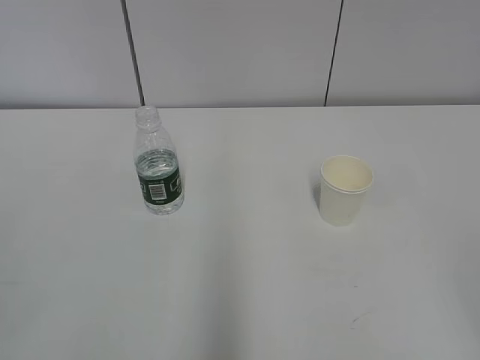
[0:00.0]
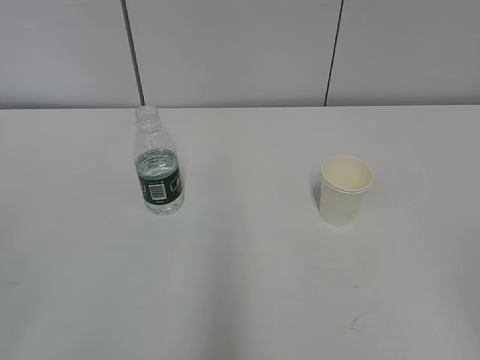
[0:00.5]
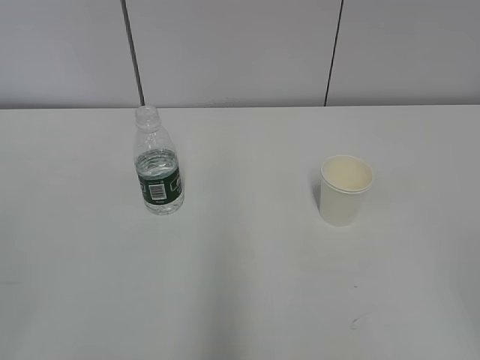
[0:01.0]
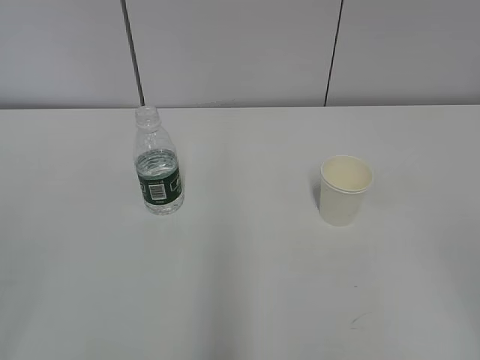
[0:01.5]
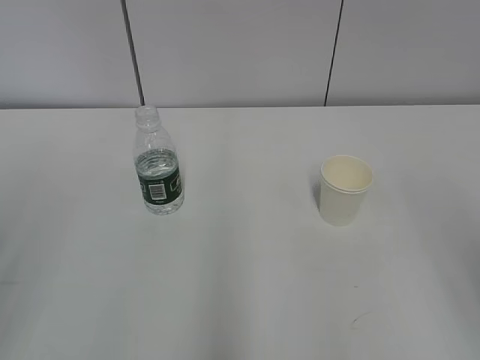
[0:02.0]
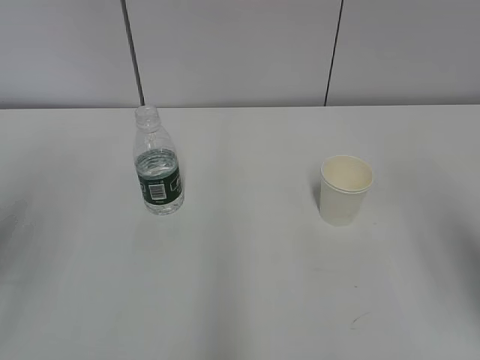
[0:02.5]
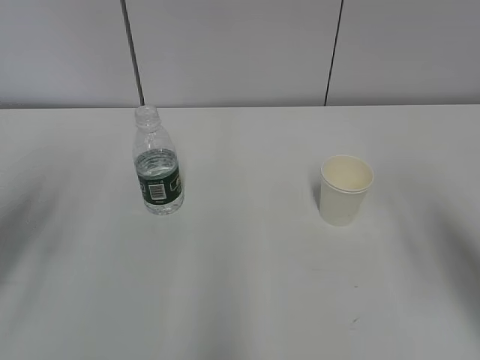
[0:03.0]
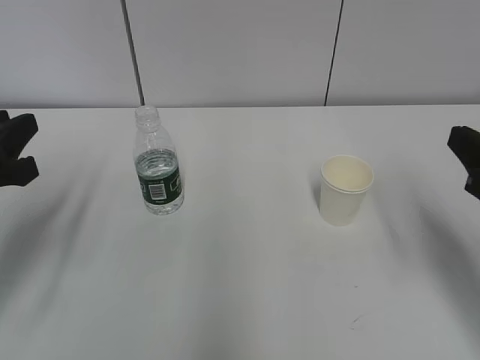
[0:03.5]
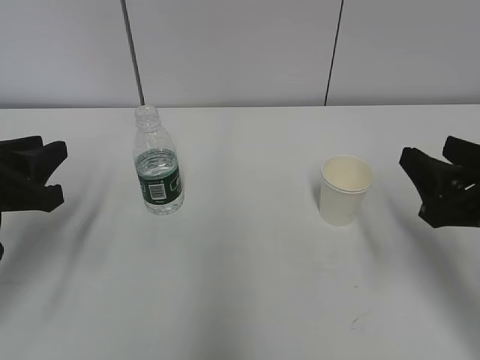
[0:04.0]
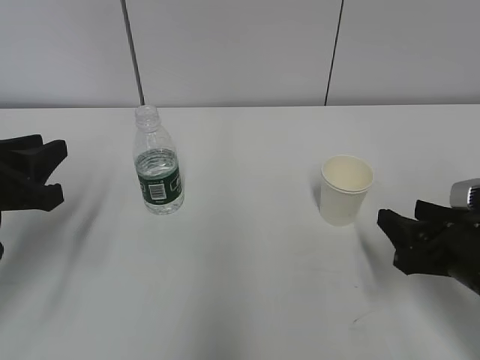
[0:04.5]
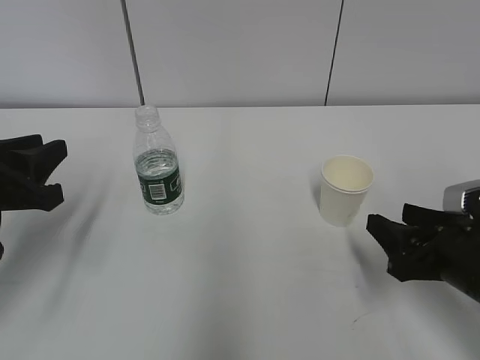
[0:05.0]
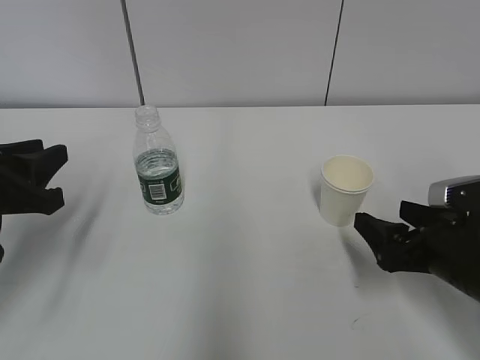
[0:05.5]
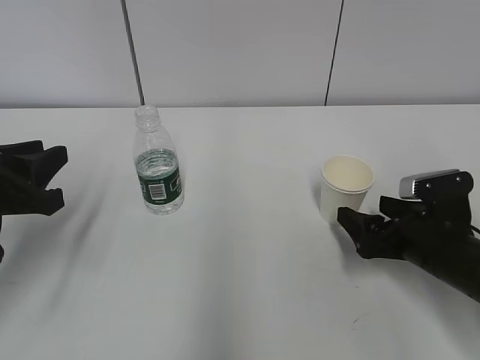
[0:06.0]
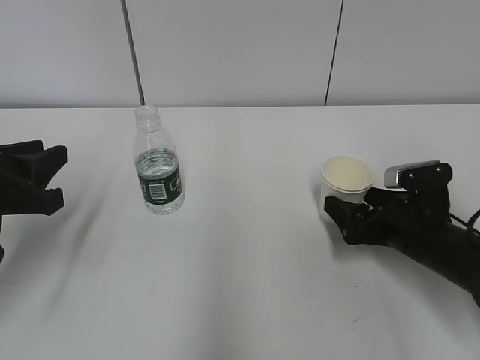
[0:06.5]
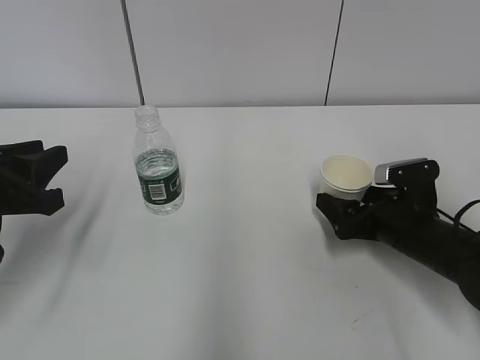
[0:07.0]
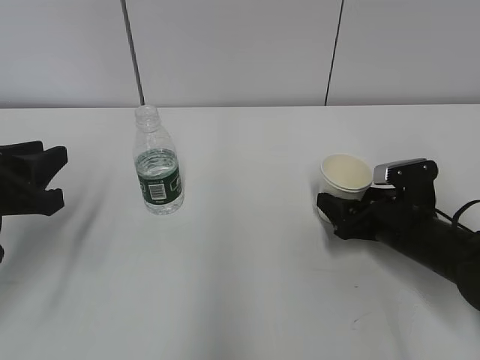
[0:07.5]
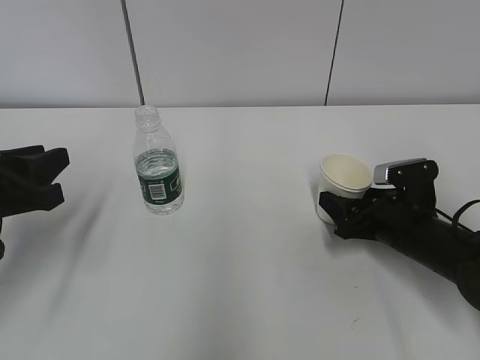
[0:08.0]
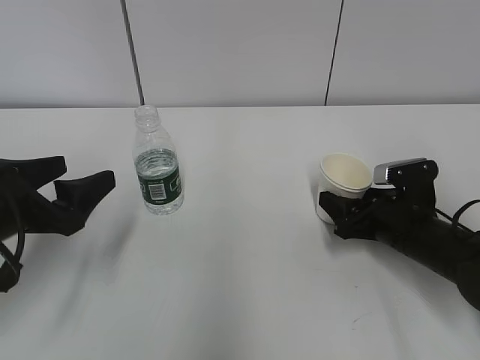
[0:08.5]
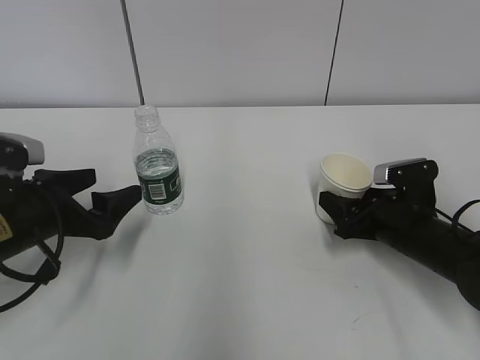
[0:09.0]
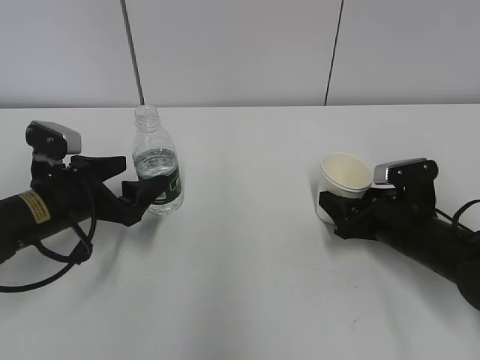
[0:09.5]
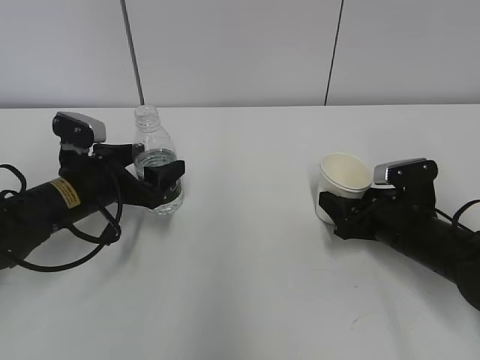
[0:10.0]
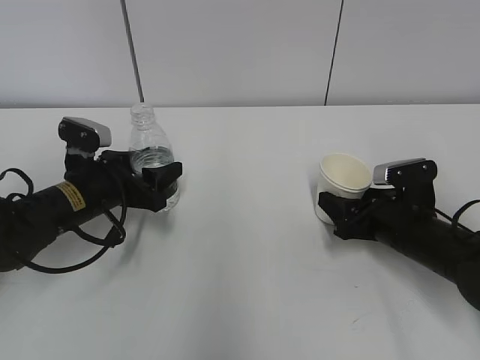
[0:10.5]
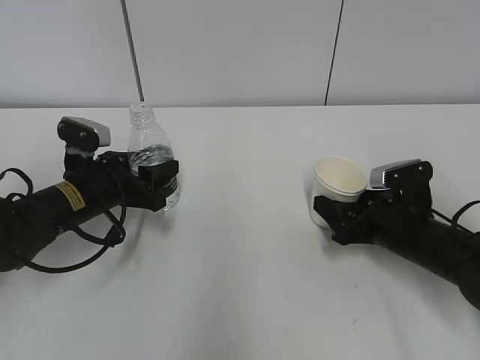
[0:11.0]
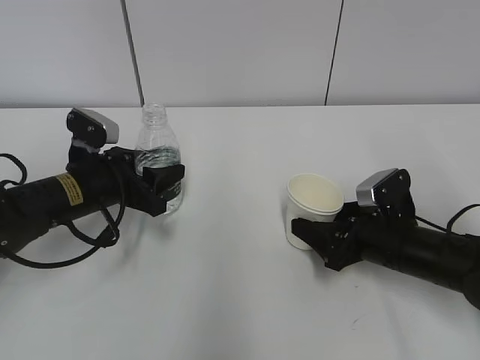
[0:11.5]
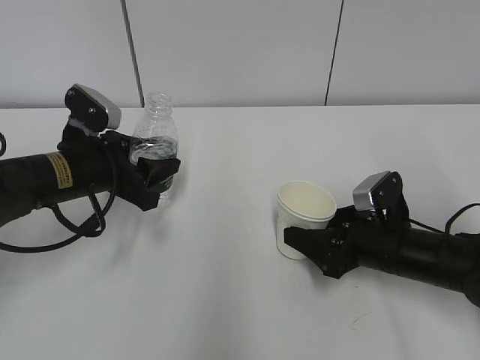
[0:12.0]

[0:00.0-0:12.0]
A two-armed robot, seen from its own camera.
Step, 0:00.0 to 0:09.0: Grab the paper cup with the right hand.
0:02.0 to 0:04.0: Both grippers move forward and downward, roughly 20 cm.
0:04.0 to 0:06.0: The right gripper moves downward and forward, approximately 10 cm, and opens.
0:06.0 to 0:08.0: The right gripper moves some 5 cm, and closes.
0:08.0 to 0:10.0: The left gripper is displaced forward, downward and to the right by about 15 cm, and opens up.
0:10.0 to 0:12.0: The left gripper closes up.

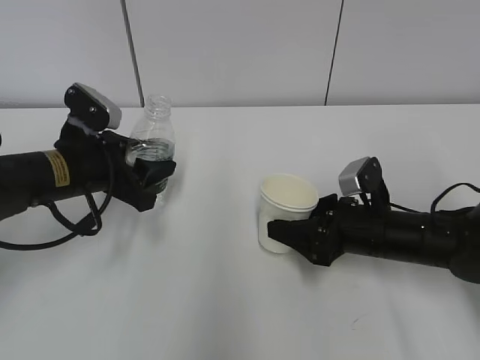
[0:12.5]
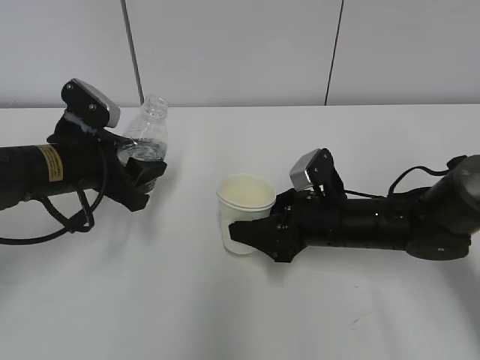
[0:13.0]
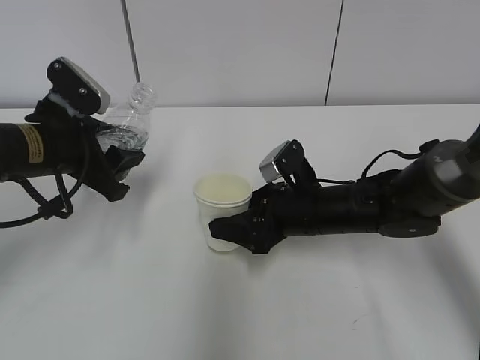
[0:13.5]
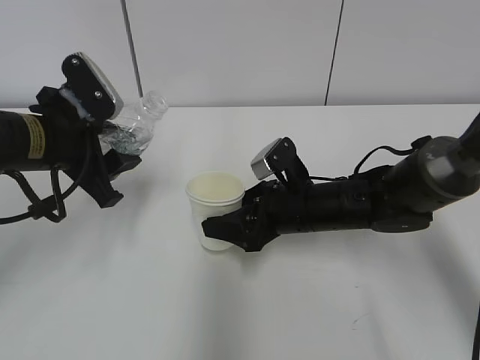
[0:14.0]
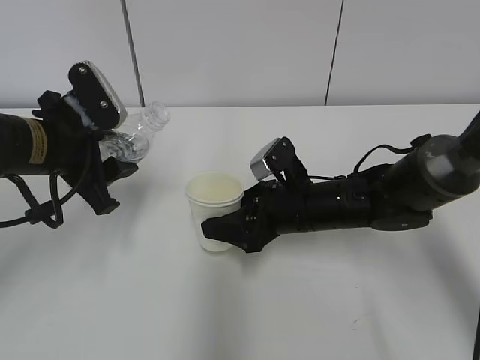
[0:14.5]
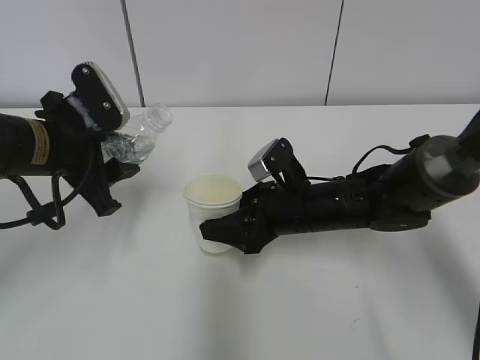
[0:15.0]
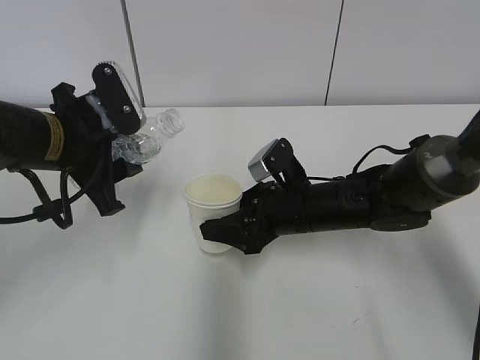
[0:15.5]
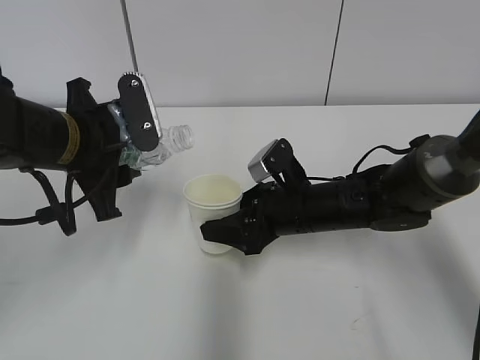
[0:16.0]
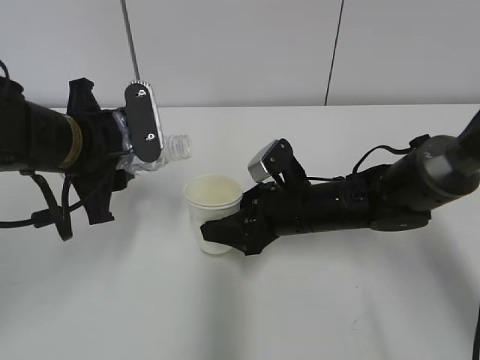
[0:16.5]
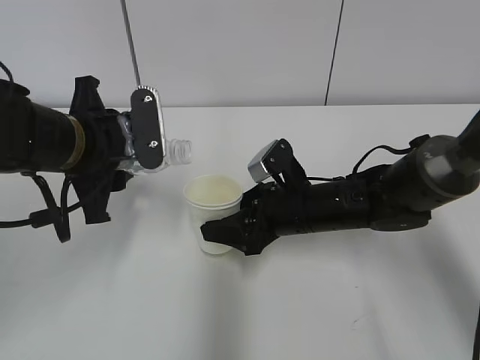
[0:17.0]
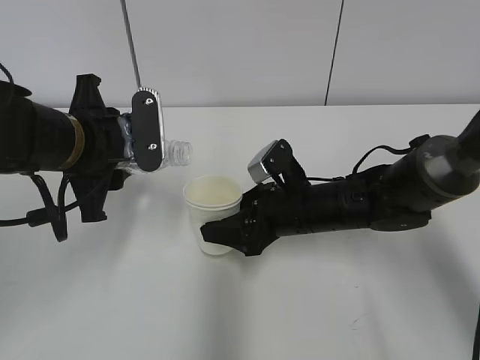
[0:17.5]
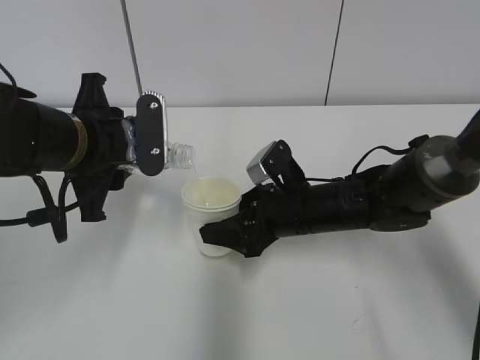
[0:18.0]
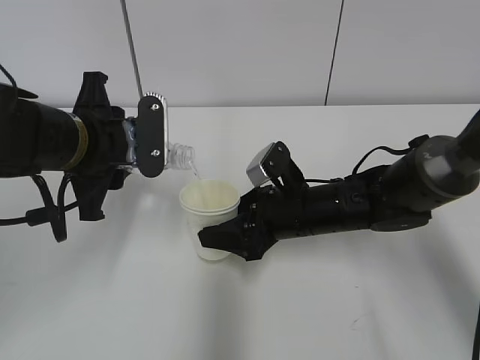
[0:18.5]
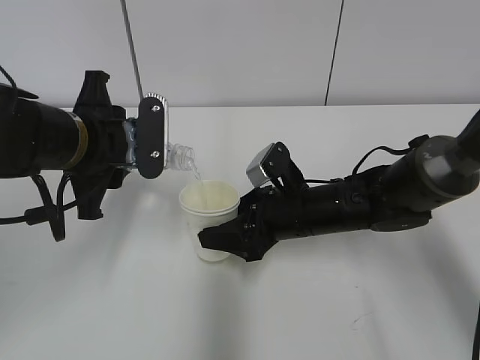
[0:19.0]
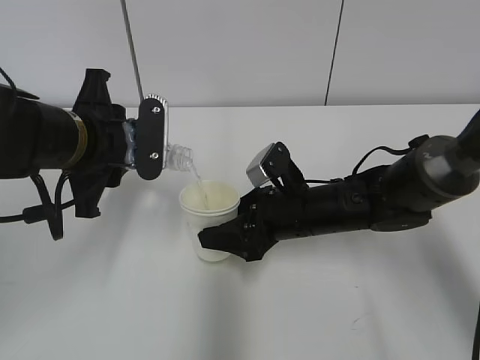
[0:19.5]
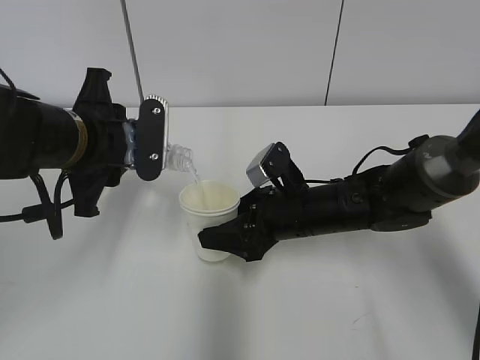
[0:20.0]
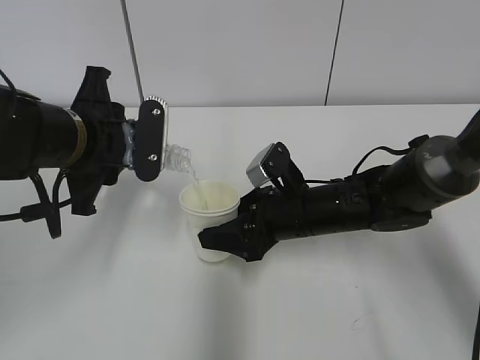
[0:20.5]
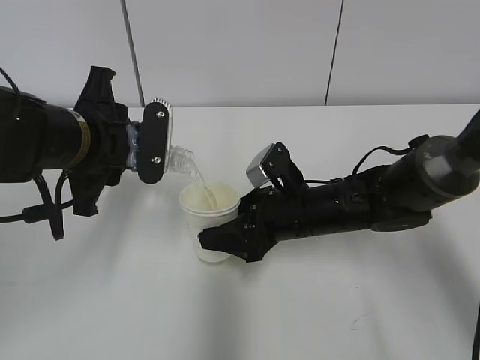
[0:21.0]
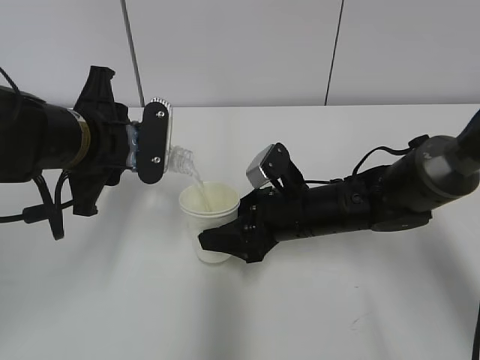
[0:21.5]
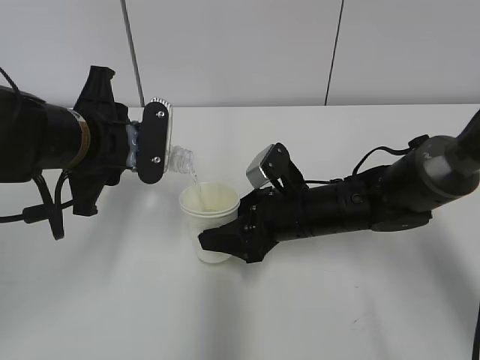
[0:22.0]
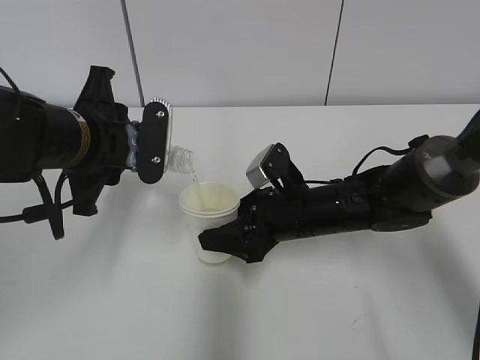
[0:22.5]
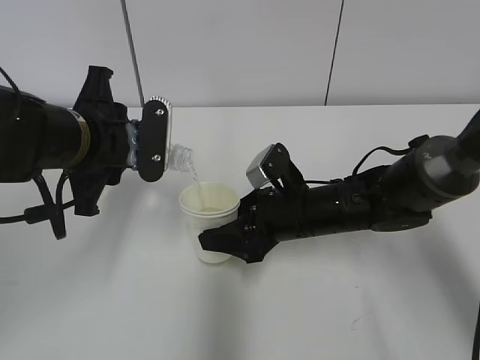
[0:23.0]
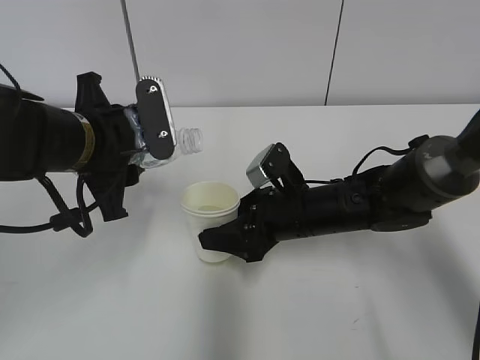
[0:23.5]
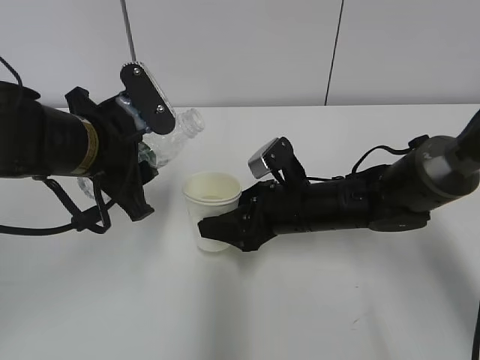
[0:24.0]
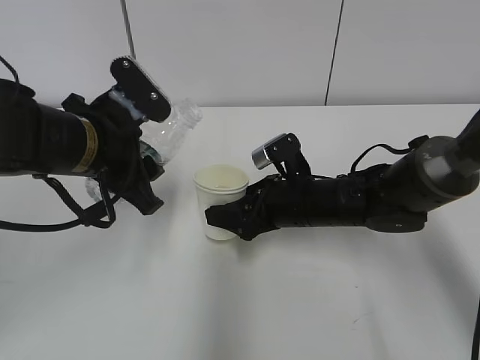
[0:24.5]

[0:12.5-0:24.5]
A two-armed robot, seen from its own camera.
Step, 0:14.5 to 0:19.0: Pour water with the left hand.
Step, 0:19.5 to 0:21.0: Collect water with the left hand.
0:12.5 to 0:14.5: The left gripper heads upward, covering approximately 5 cm, while the right gripper travels to the left by about 10 cm.
0:16.5 to 0:20.5: The grippers stay close to where they were, moving slightly.
0:20.5 to 0:22.5: Neither gripper changes place.

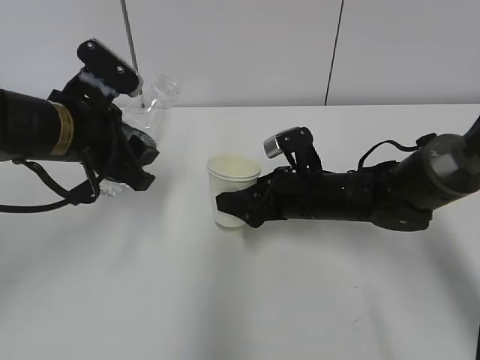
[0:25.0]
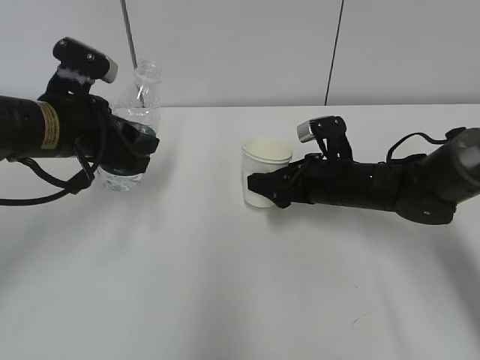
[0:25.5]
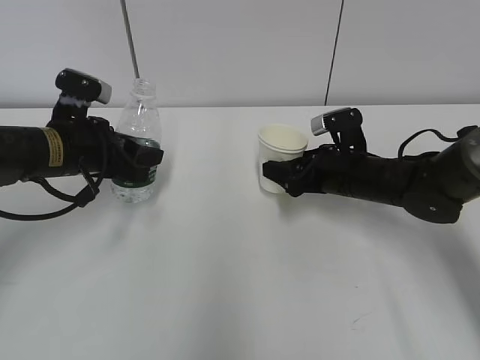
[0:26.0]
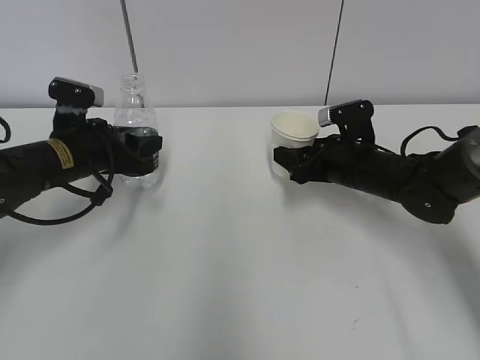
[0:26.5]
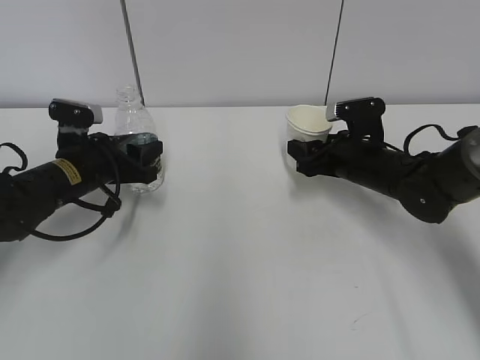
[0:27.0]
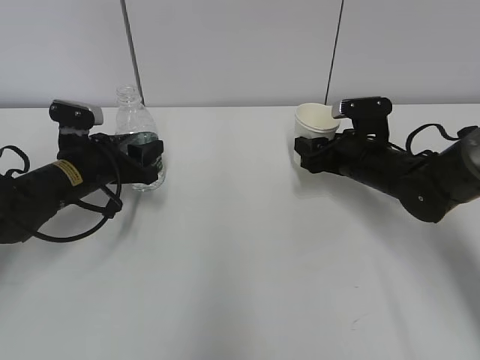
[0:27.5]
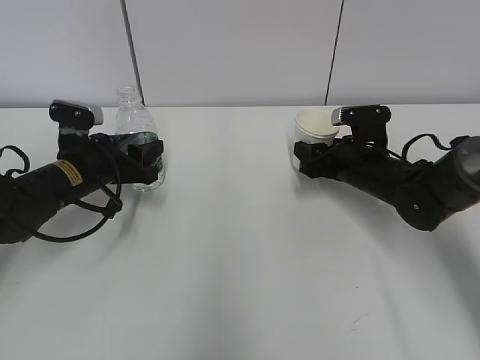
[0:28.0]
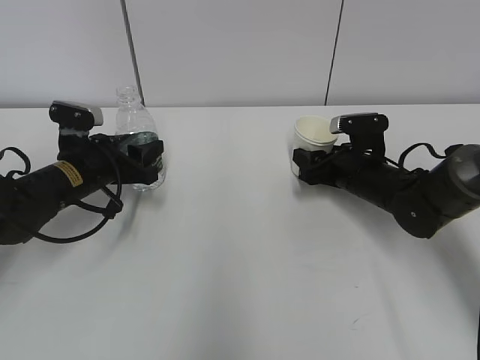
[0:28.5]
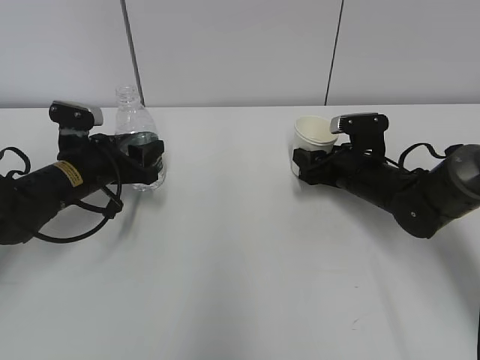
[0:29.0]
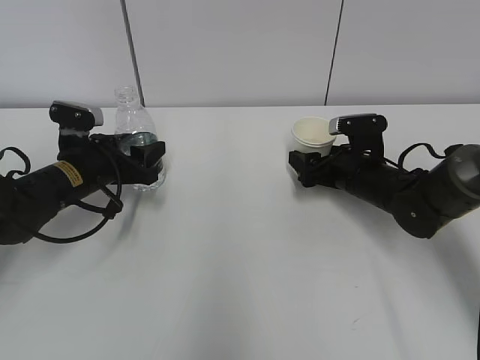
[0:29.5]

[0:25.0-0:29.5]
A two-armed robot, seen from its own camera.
Step, 0:25.0 to 0:26.0: Place the water bottle with the left hand.
0:25.0 to 0:27.0: The right gripper goes about 10 cm to the right. Meanwhile the left gripper travels downward and forward by approximately 15 cm.
0:27.0 to 0:29.5: The right gripper opens up.
